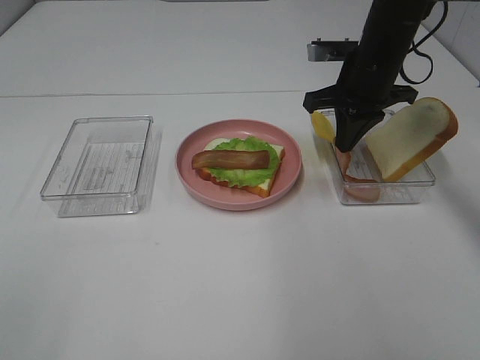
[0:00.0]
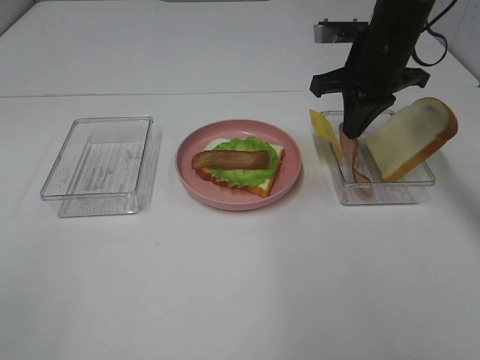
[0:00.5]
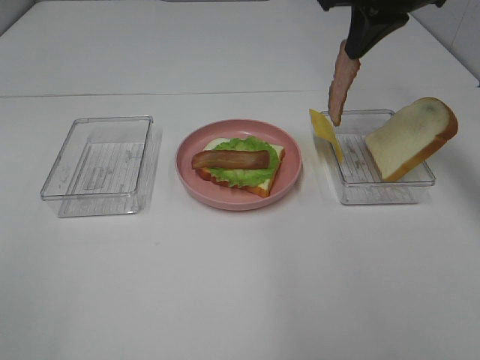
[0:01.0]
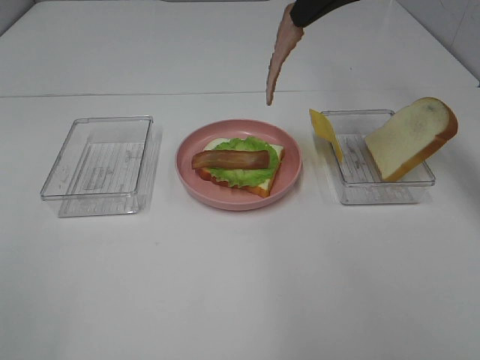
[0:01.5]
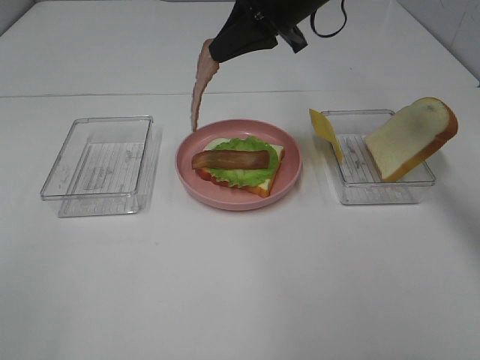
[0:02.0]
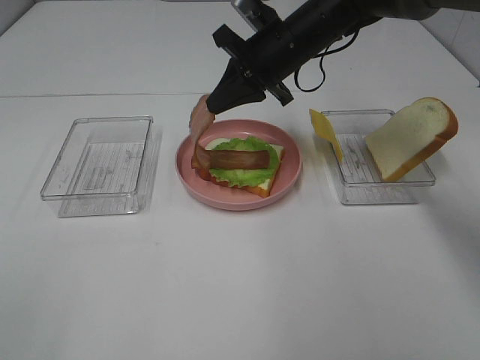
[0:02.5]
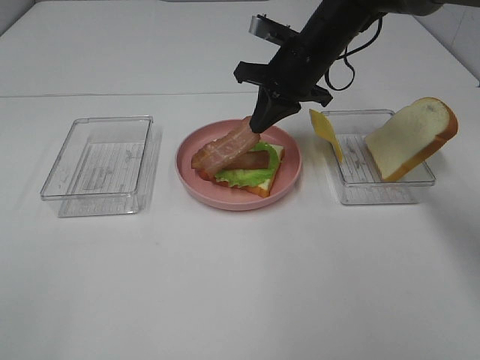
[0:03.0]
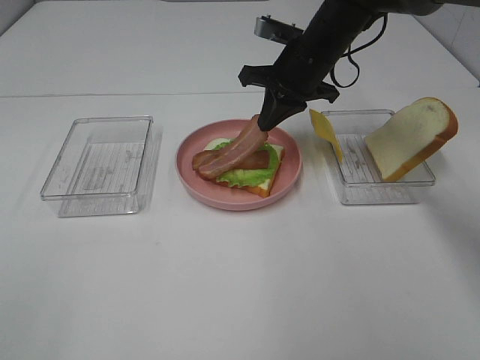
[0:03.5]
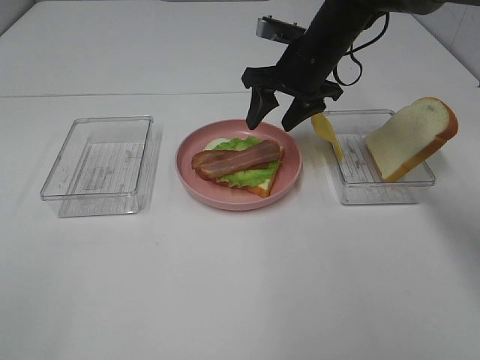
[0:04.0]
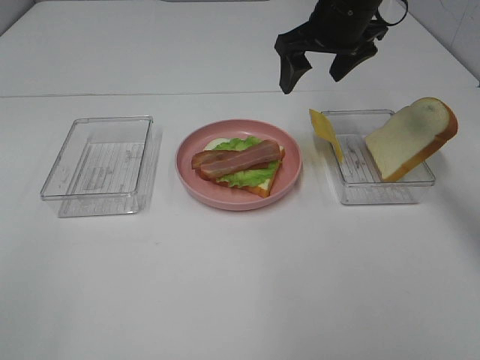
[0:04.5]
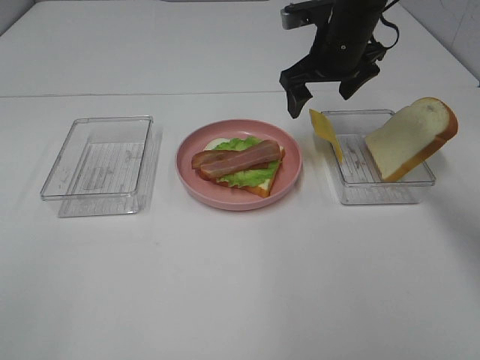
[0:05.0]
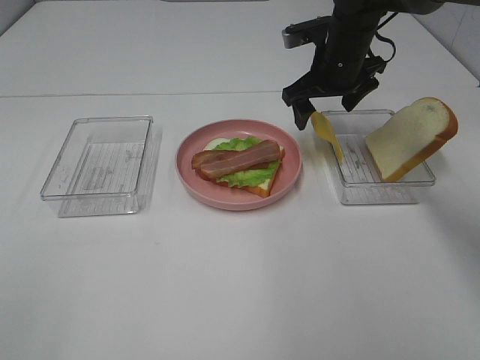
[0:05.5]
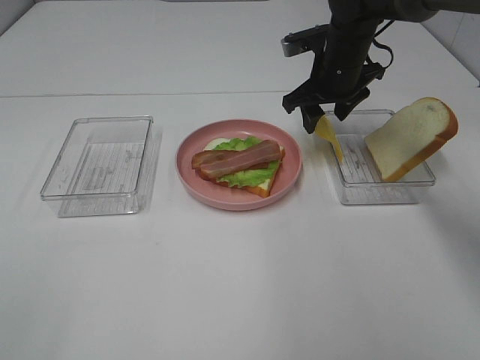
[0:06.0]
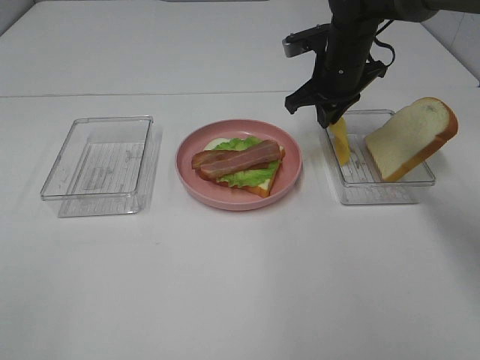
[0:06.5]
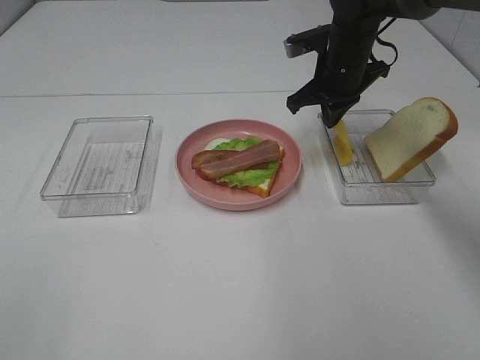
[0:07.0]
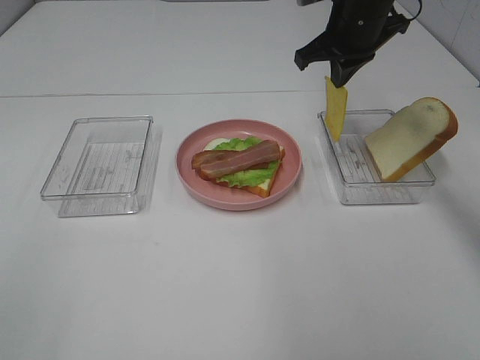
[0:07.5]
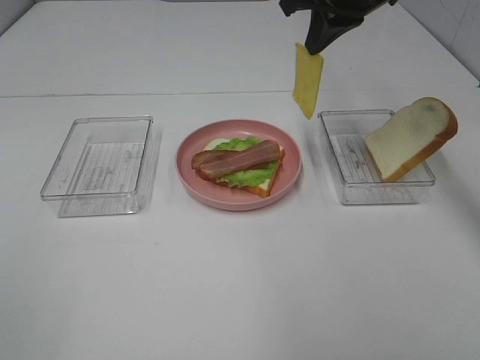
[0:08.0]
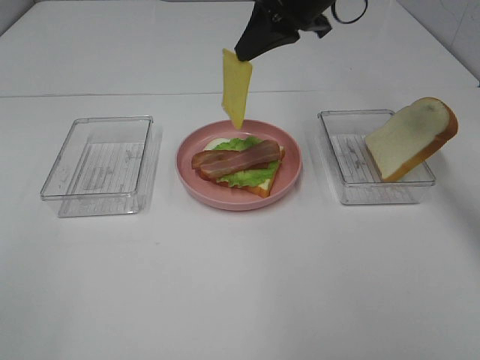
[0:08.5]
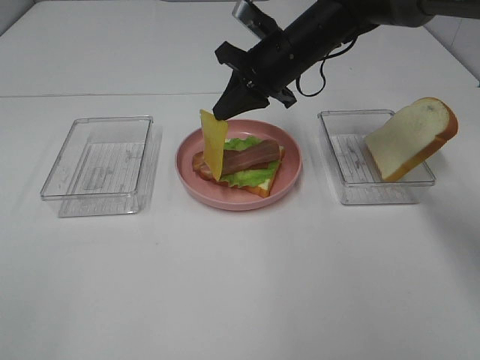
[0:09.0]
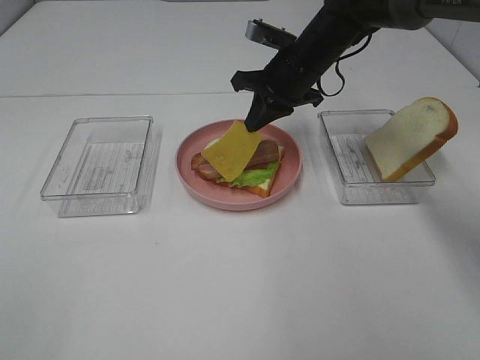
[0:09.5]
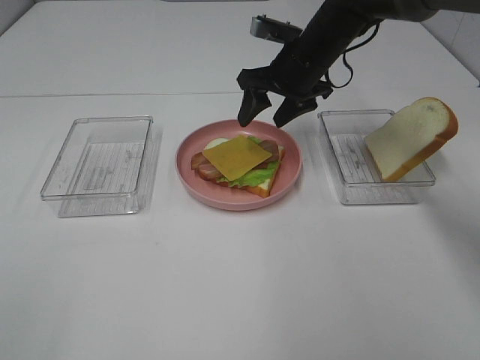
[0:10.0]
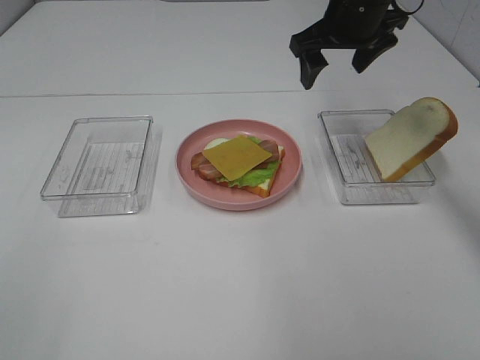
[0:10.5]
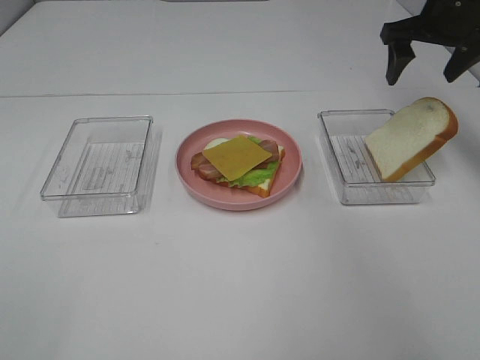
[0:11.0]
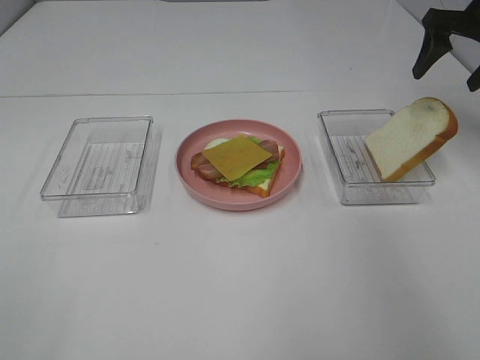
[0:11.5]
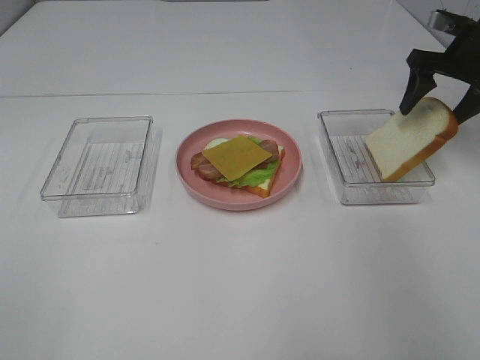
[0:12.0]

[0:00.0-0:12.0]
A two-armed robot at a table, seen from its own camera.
Task of the whole recording: Make sandwiches.
Step, 0:00.0 to 0:03.5: Right hand:place bacon on bacon.
Step, 0:04.0 to 0:06.5: Right hand:grab the cheese slice.
Step, 0:07.0 to 0:09.5: Right hand:place the cheese slice on top of the bacon.
0:00.0 to 0:02.0: The right gripper goes about 10 cm to the left and upward.
0:02.0 to 0:04.0: The right gripper travels downward by roughly 10 cm, and opens its fingers.
0:04.0 to 0:06.0: The right gripper travels upward and back again, approximately 5 cm each way.
0:06.0 to 0:08.0: The right gripper moves upward, approximately 15 cm, and closes its fingers.
0:08.0 to 0:10.0: The right gripper is displaced downward by some 10 cm, and opens.
0:10.0 to 0:12.0: The right gripper is displaced to the right by some 25 cm.

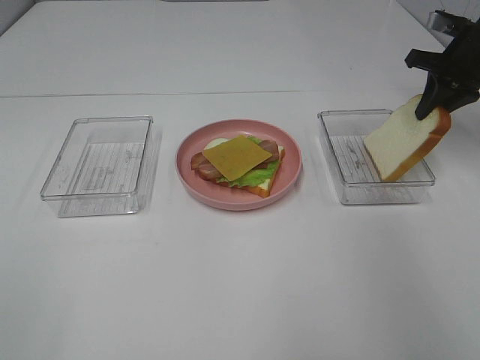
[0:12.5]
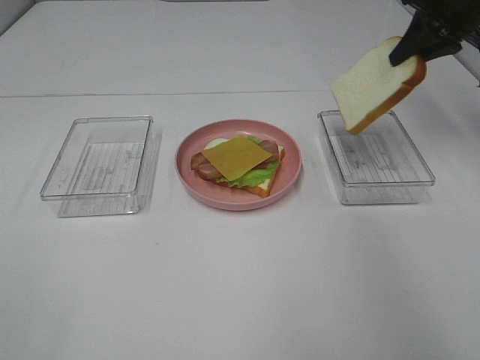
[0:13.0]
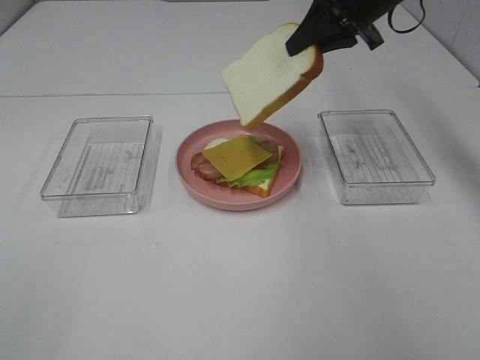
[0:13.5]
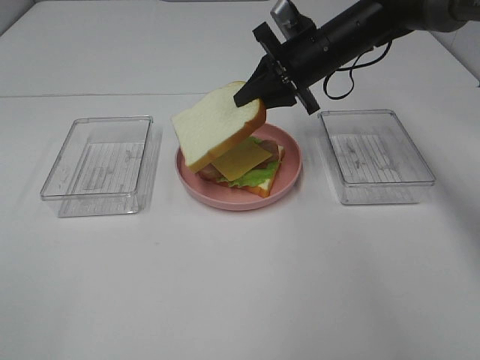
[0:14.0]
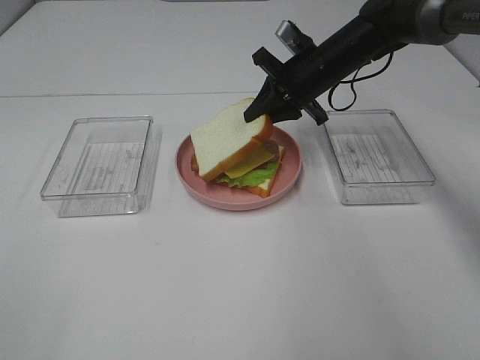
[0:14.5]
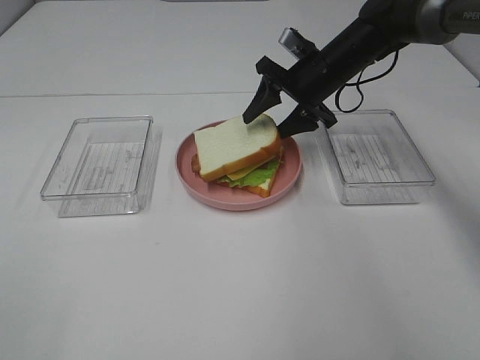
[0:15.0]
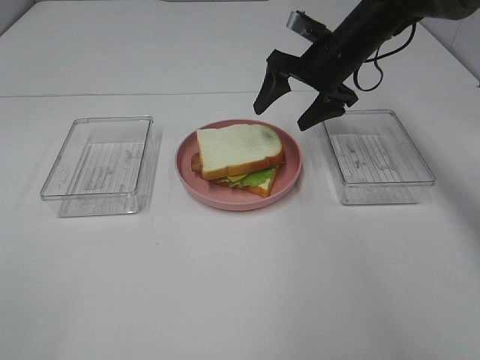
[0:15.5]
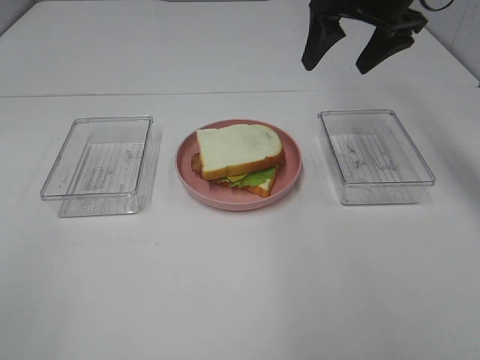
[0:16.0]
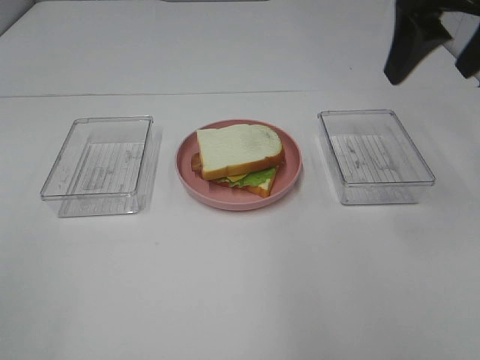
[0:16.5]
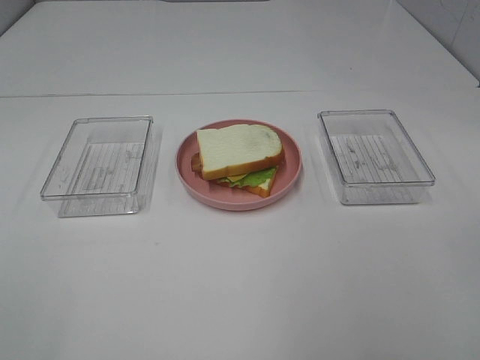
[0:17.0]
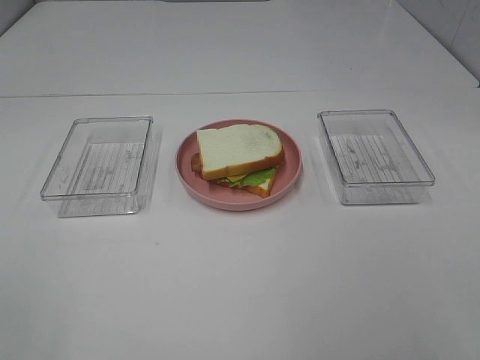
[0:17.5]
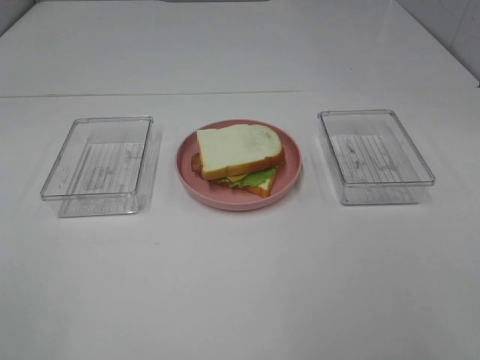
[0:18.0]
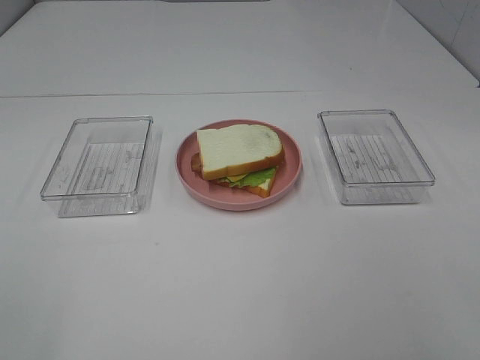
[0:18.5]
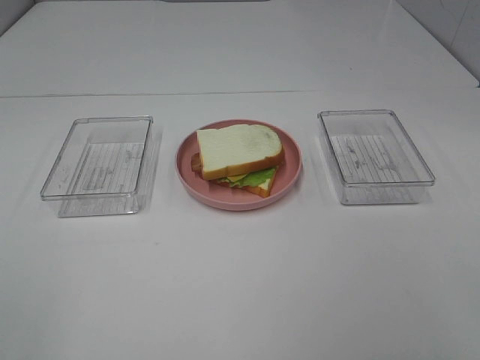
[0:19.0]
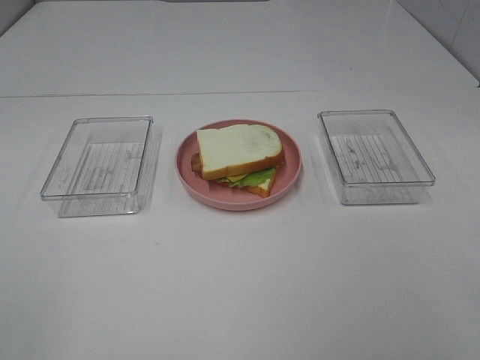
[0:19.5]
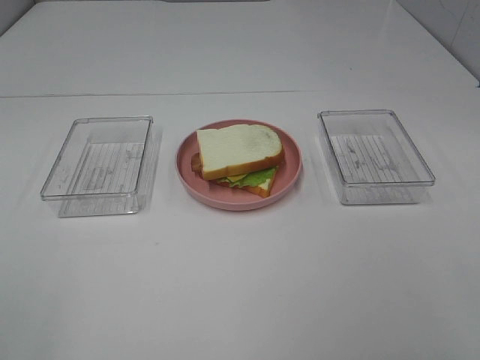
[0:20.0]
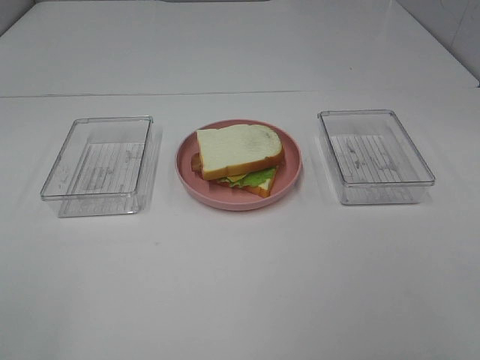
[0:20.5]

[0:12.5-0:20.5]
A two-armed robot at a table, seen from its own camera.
Task of the whole recording: Make sandwiches.
Step, 0:13.0 to 0:15.0: Right hand:place the bread slice on the cheese slice.
0:12.5 to 0:14.5: The right gripper shifts roughly 20 cm to the left.
0:14.5 to 0:16.5: The right gripper travels upward, backward and to the right by some 25 cm, and opens its fingers.
0:16.5 to 0:18.5: The right gripper shifts some 30 cm backward.

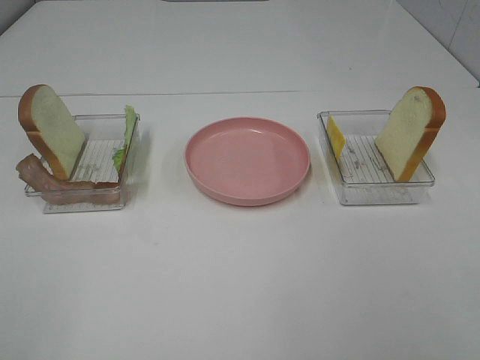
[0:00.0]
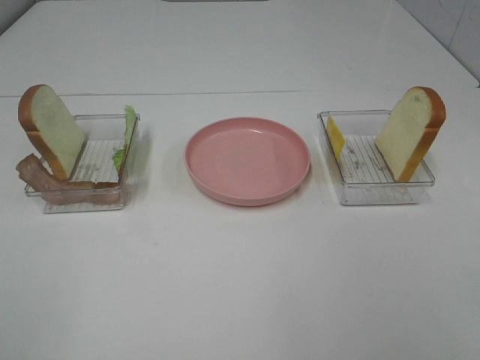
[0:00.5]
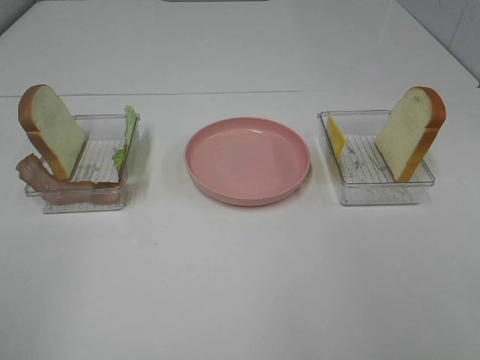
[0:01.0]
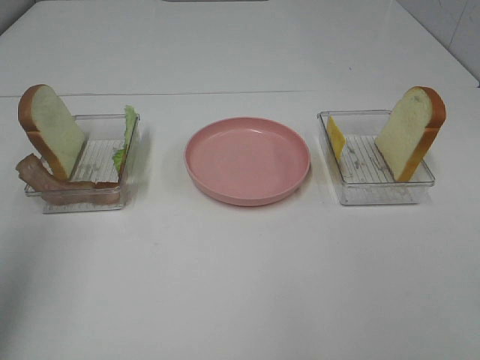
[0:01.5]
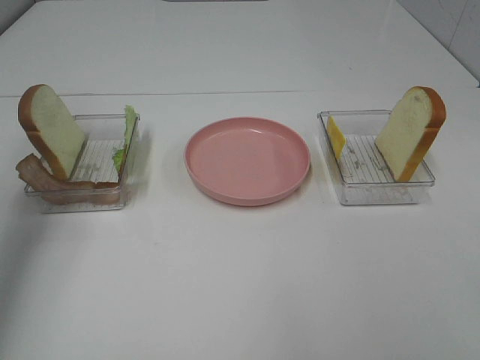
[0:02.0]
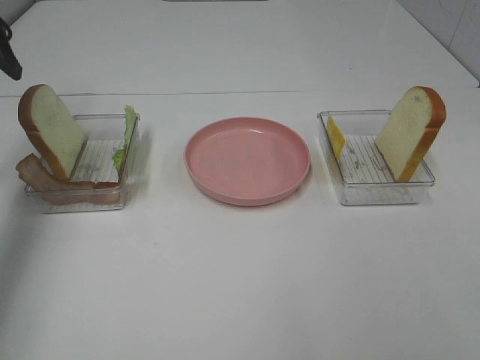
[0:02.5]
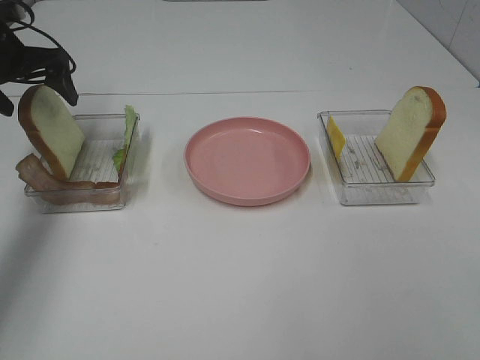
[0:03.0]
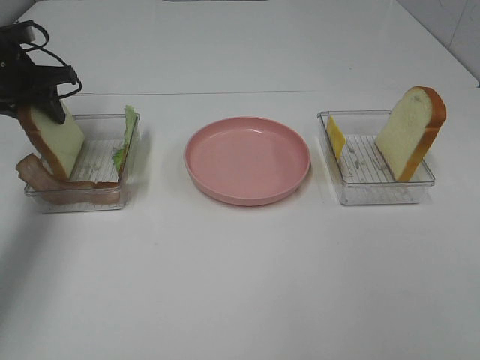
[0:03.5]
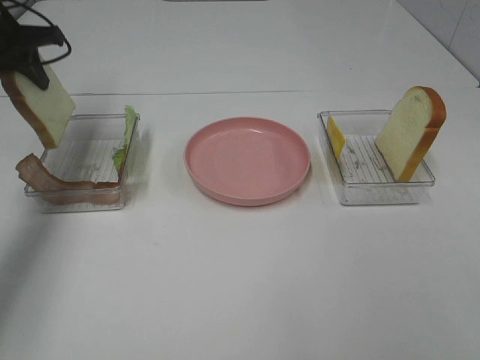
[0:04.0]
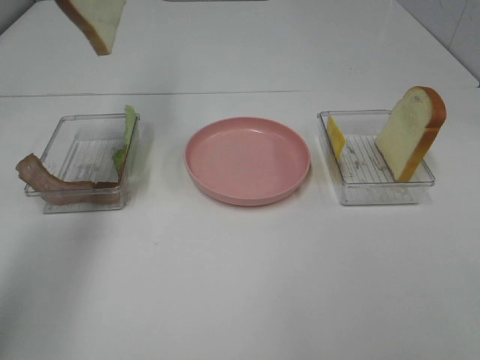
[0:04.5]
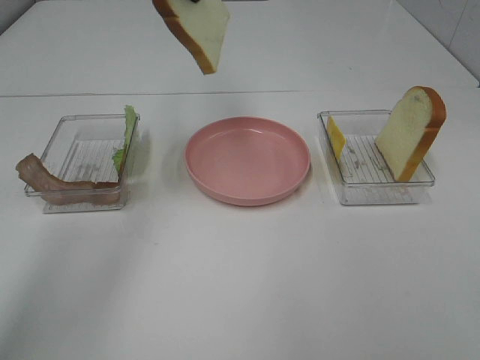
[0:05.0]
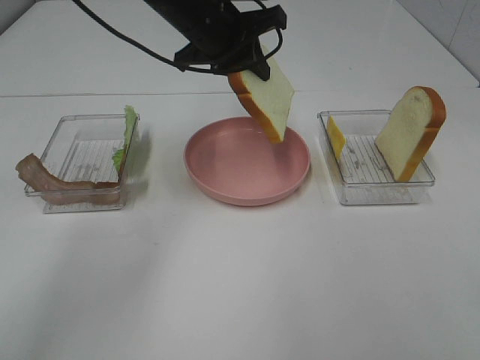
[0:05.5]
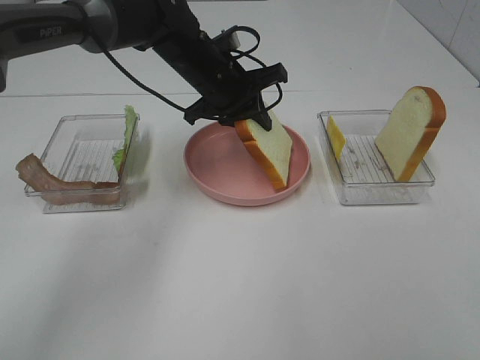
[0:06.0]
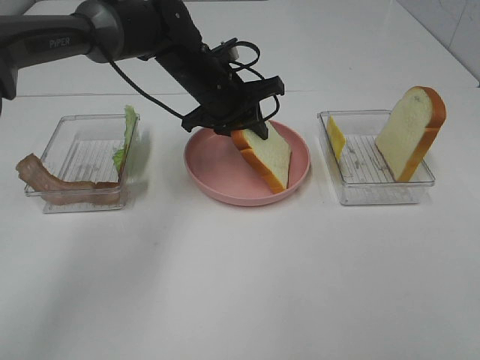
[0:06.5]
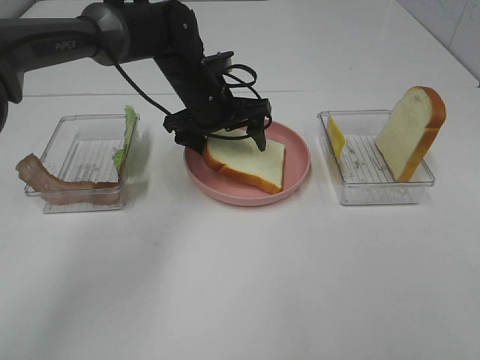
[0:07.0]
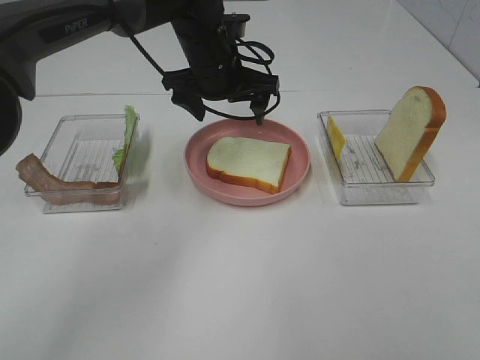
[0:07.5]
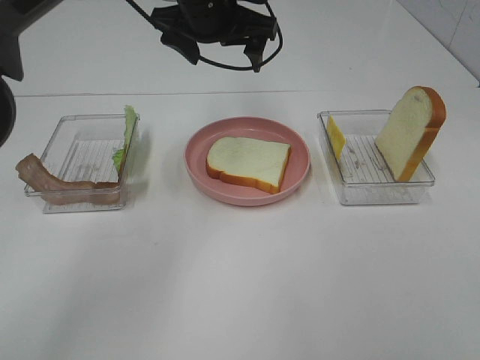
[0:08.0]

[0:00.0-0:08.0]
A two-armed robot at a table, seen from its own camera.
Task of the whole recording: Make sandwiches.
Step, 0:00.0 to 0:03.5: Left hand:grab the bread slice.
Step, 0:04.0 to 0:07.0: Left hand:place the bread slice on the plate.
0:00.0 to 0:02.0: The left gripper is displaced forward by roughly 30 cm.
0:02.0 to 0:04.0: The left gripper heads forward and downward, covering roughly 20 cm, and closes.
0:04.0 to 0:06.0: The left gripper moves to the right, roughly 30 cm.
0:06.0 to 0:08.0: The left gripper is displaced upward by approximately 10 cm, and opens up.
